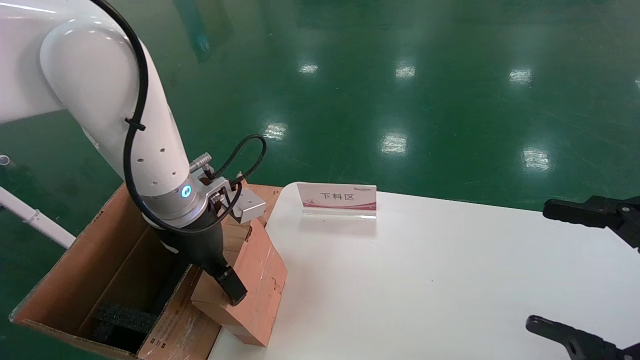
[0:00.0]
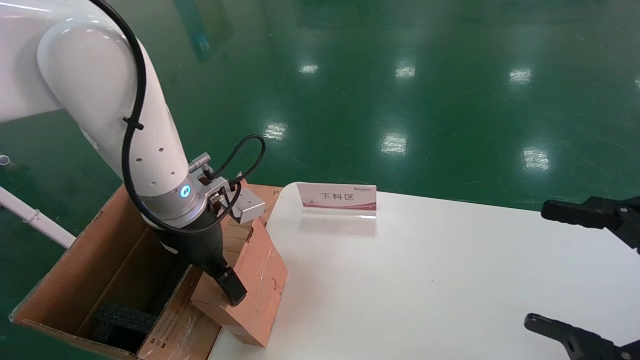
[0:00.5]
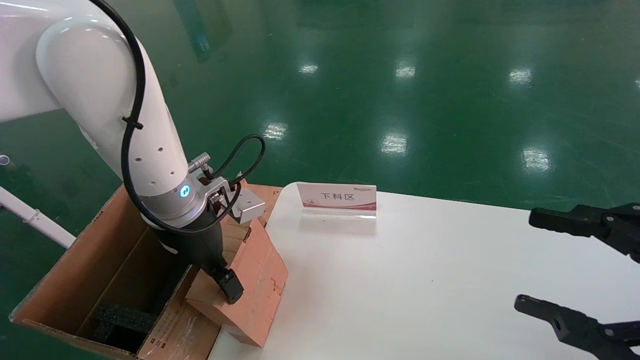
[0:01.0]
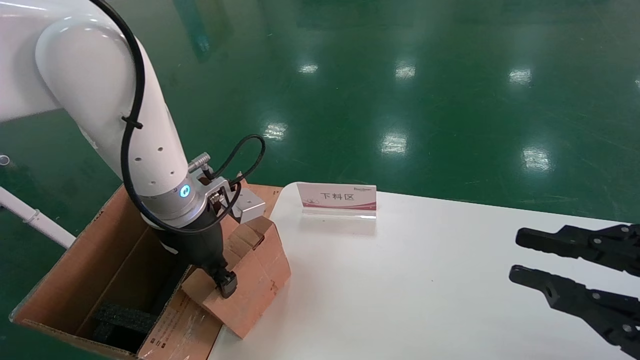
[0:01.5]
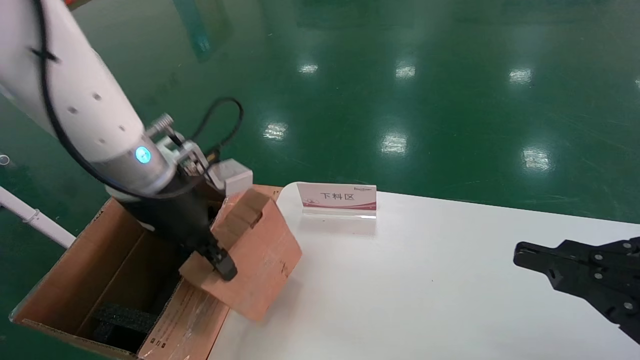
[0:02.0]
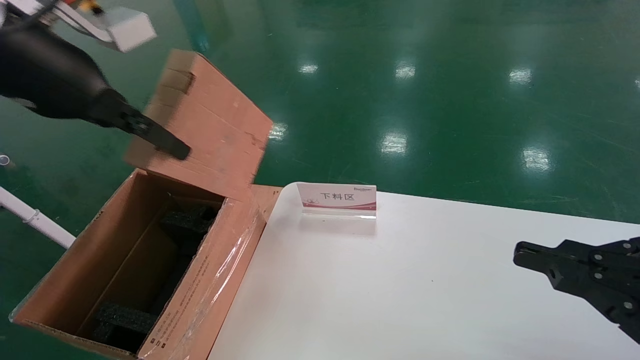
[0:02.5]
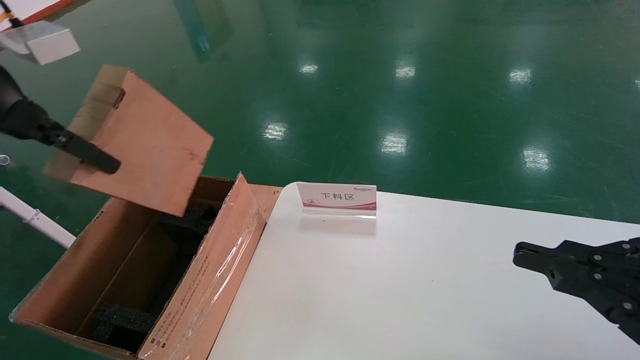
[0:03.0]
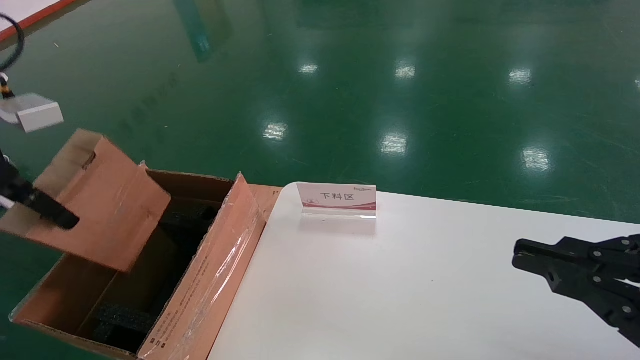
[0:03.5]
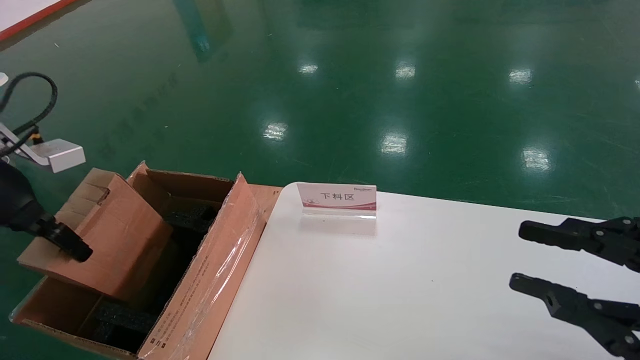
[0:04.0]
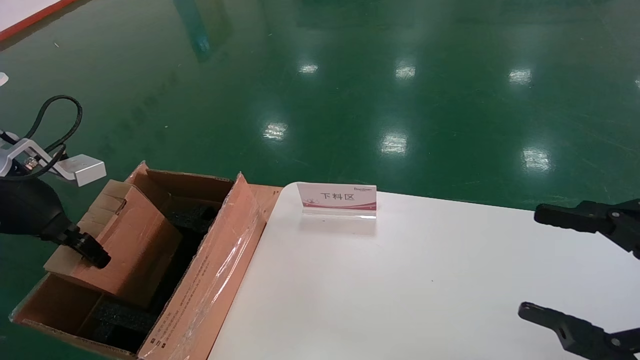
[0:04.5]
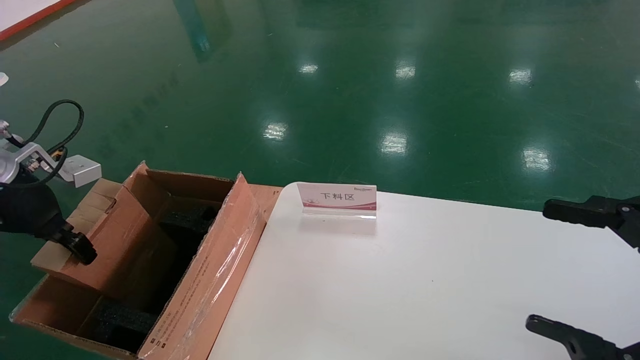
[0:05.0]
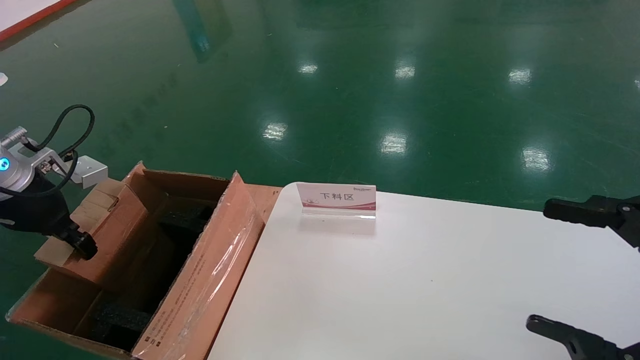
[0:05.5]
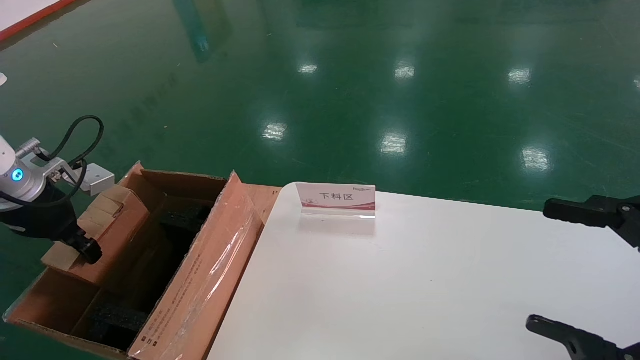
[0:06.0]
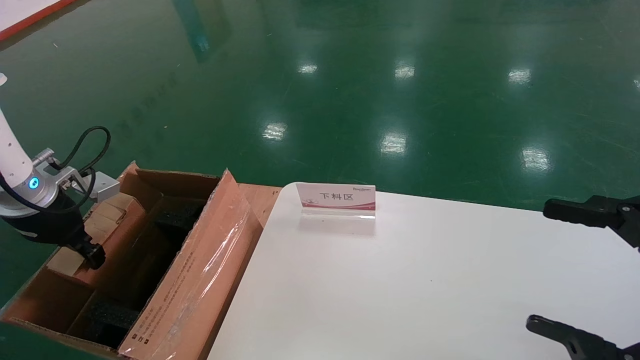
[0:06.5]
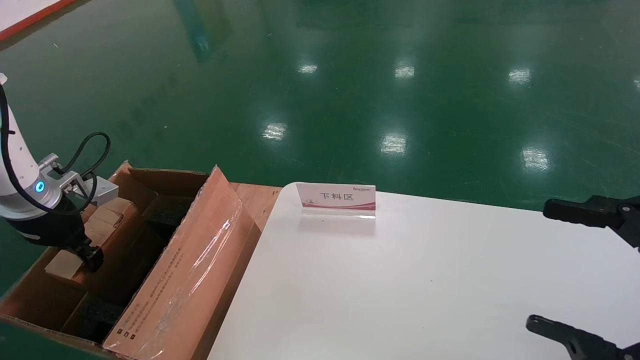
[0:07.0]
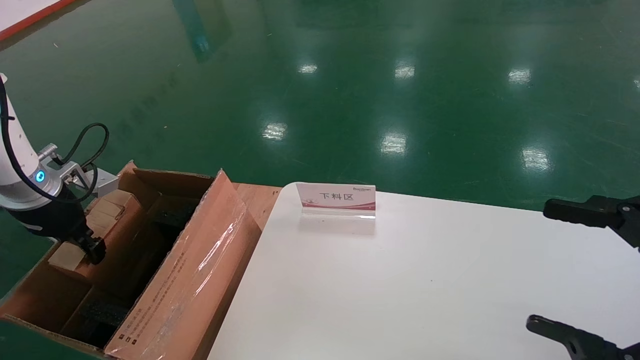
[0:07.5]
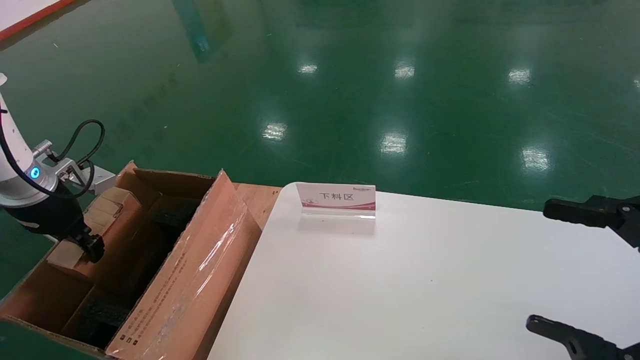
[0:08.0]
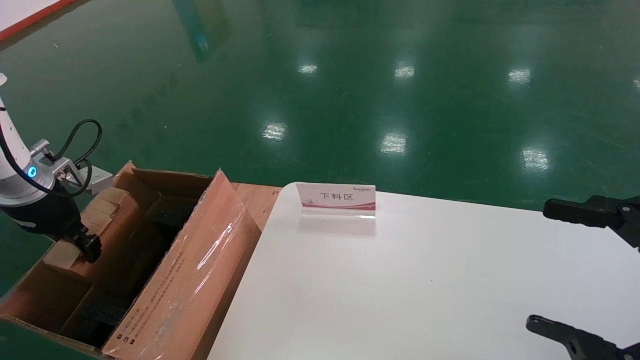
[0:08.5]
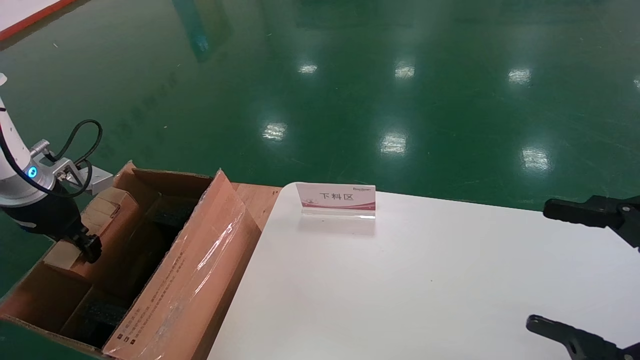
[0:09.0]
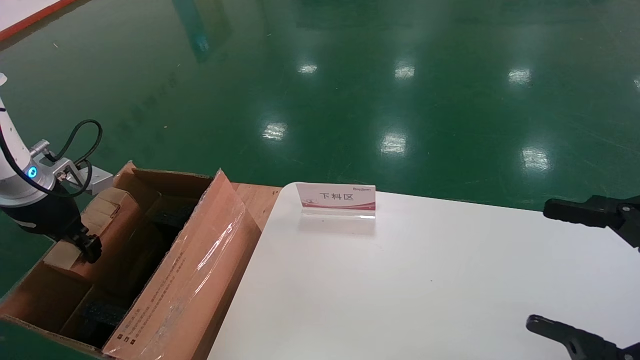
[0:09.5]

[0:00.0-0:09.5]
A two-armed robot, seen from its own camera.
Task of the whole recording: pick up the small cardboard box and load it into the large cardboard box.
0:00.0 to 0:02.0: The right gripper closes up; the left gripper heads upward, covering roughly 5 cm, and closes.
0:02.0 to 0:04.0: The left gripper shifts approximately 20 cm to the left.
0:04.0 to 0:05.5: The left gripper moves about 5 cm. Meanwhile the right gripper opens.
0:05.5 to 0:07.5: The left gripper shifts by some 5 cm.
0:07.5 to 0:09.5: Both grippers stay about where they are.

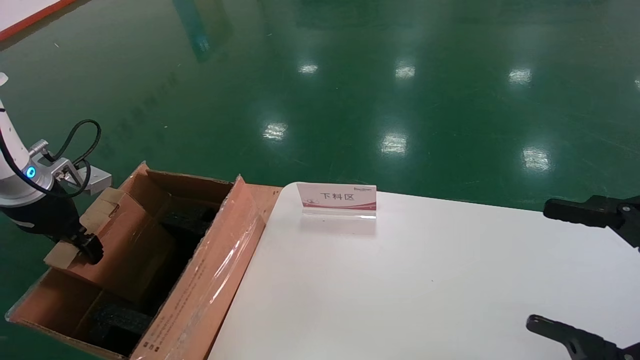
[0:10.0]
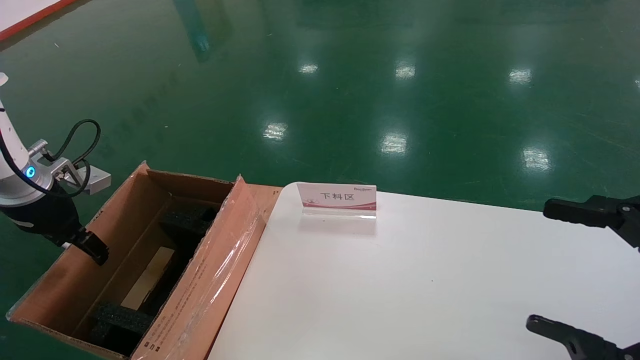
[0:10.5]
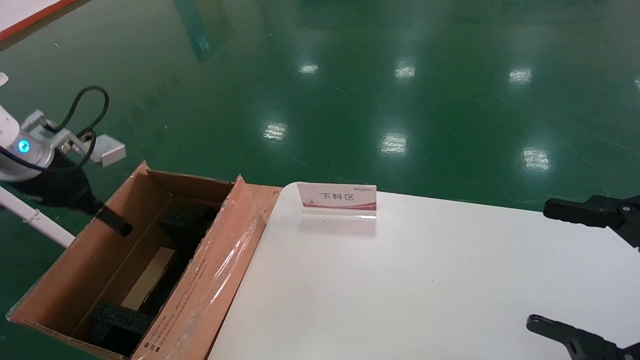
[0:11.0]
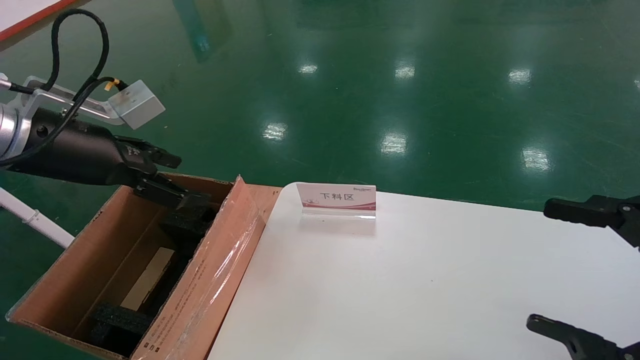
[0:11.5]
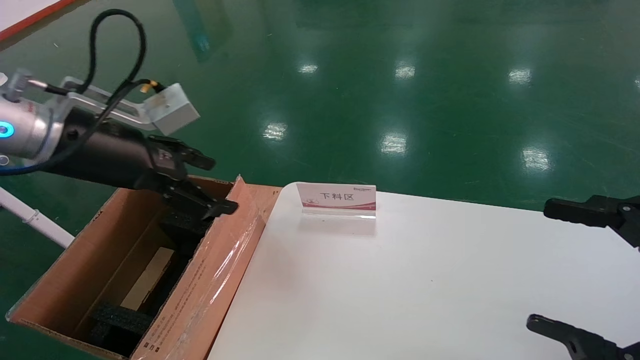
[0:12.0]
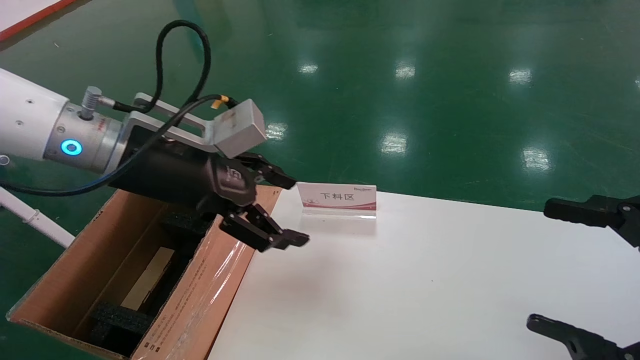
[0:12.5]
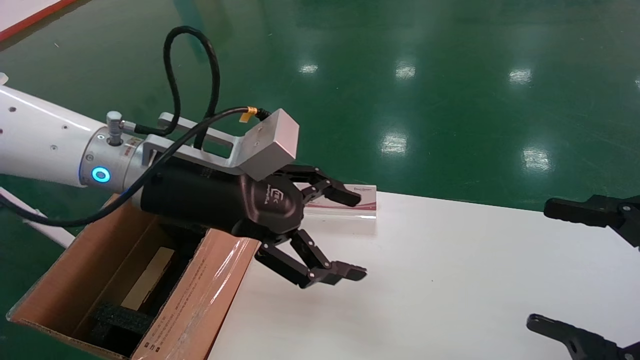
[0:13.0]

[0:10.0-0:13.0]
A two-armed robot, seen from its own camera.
Task of the whole recording: pick up the small cardboard box and load it into the large cardboard box.
0:10.0 to 0:11.5: The left gripper is displaced to the right and upward by some 15 cm, and opens its fingers.
0:11.5 to 0:13.0: The left gripper goes roughly 15 cm to the right.

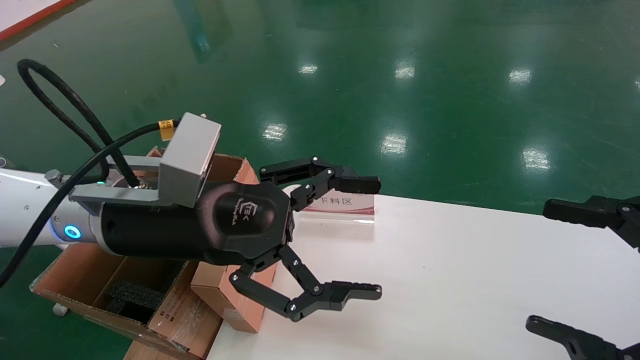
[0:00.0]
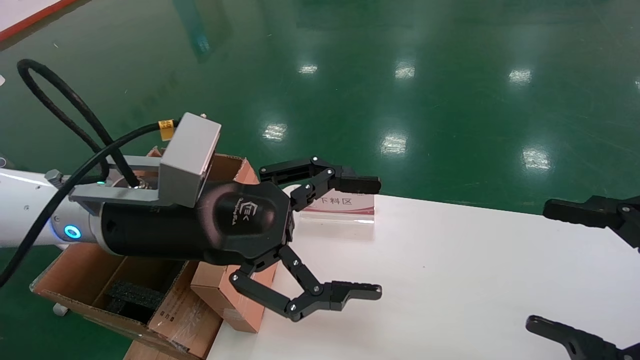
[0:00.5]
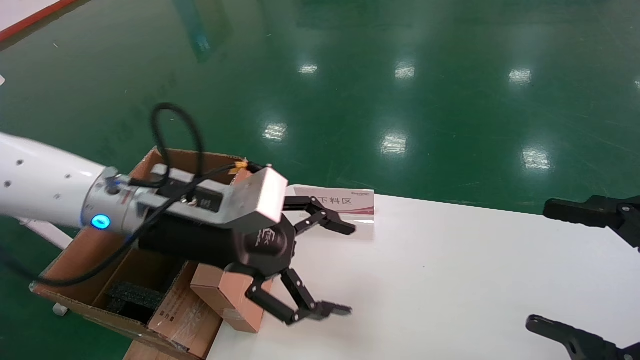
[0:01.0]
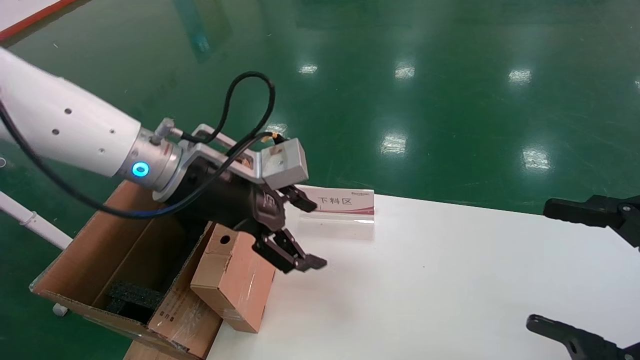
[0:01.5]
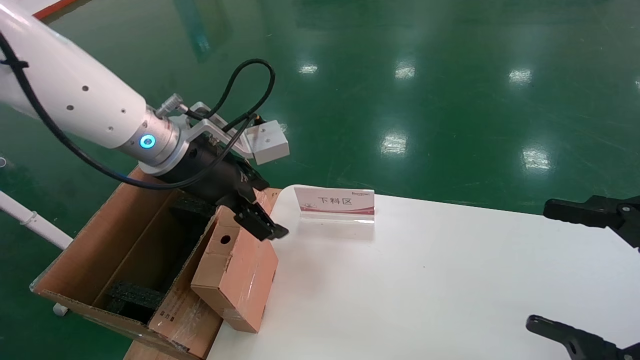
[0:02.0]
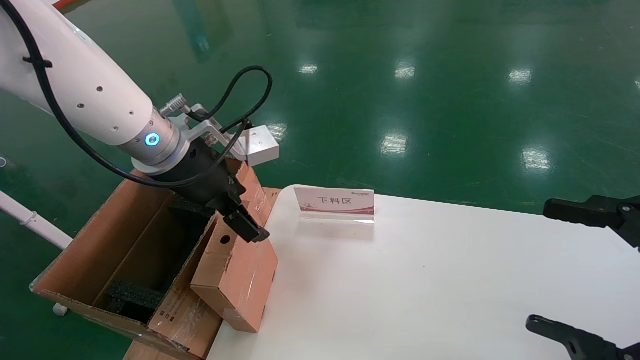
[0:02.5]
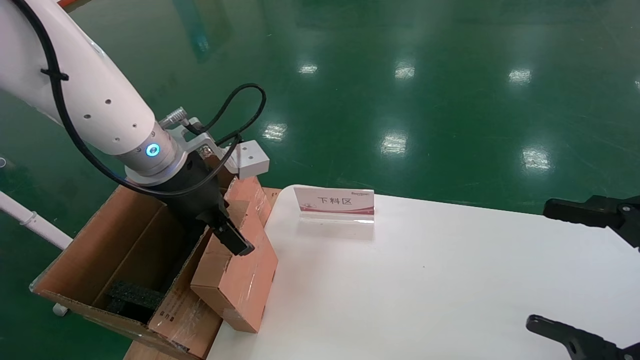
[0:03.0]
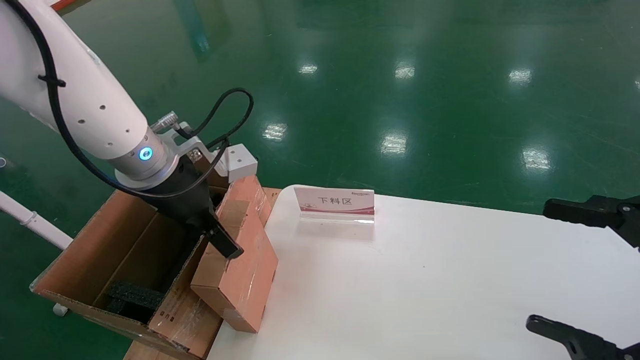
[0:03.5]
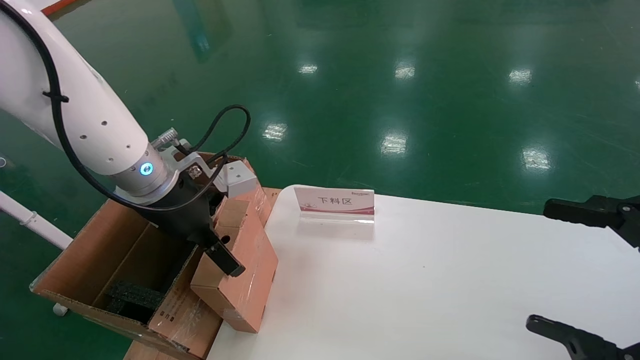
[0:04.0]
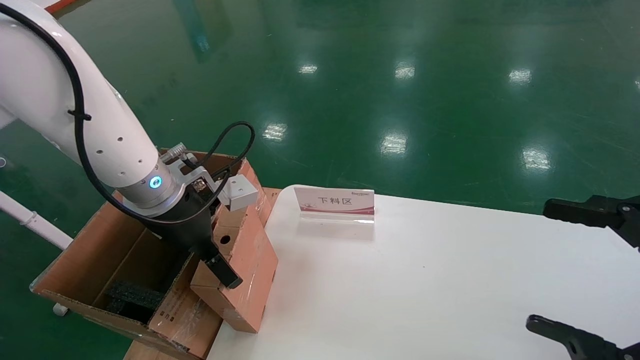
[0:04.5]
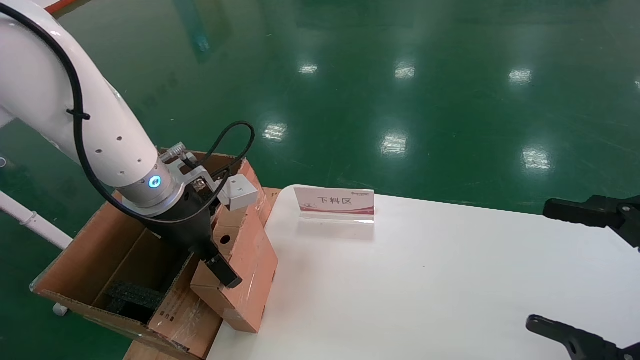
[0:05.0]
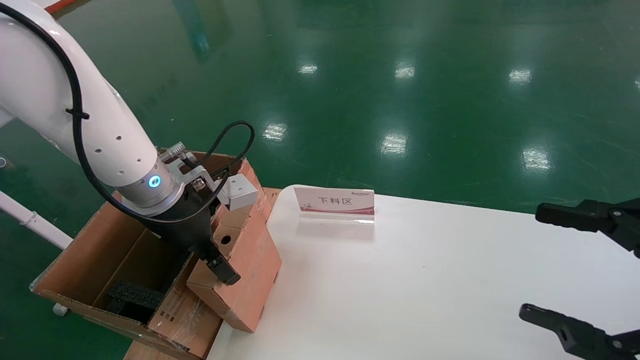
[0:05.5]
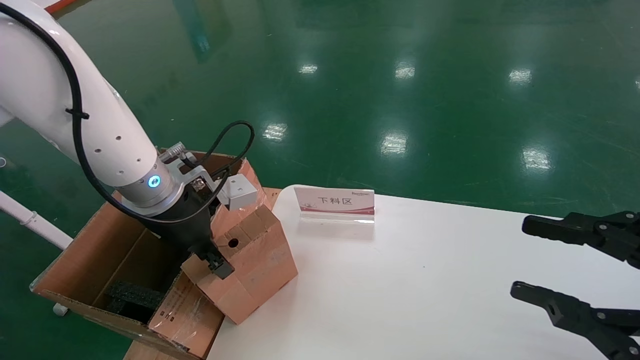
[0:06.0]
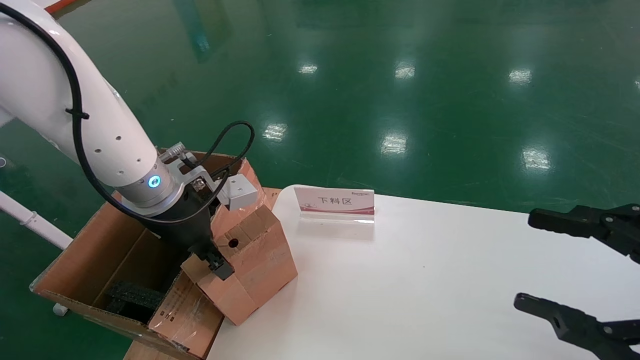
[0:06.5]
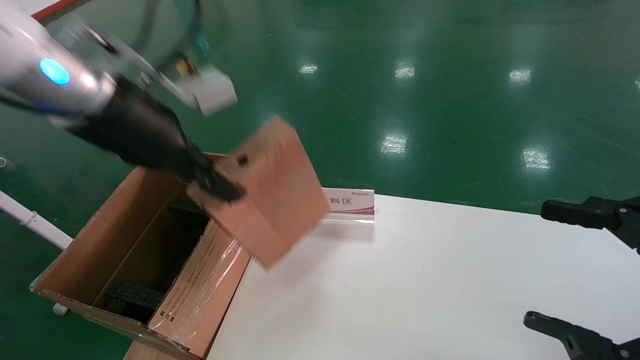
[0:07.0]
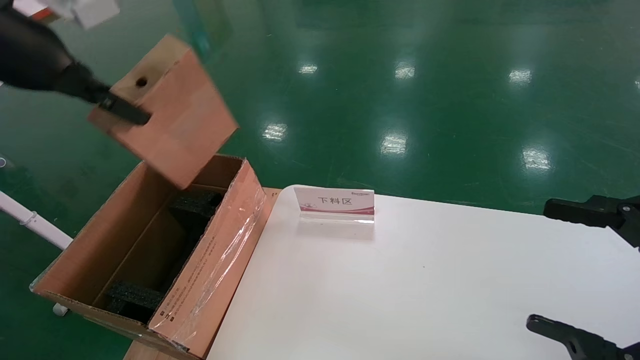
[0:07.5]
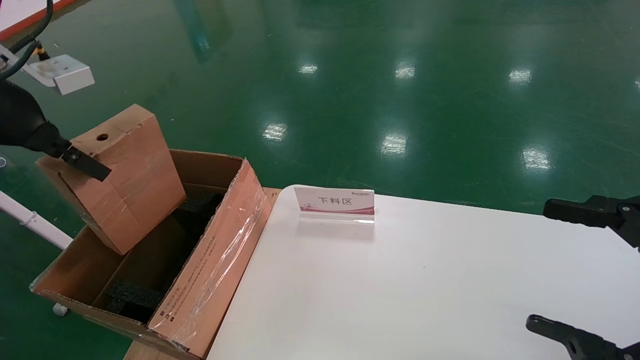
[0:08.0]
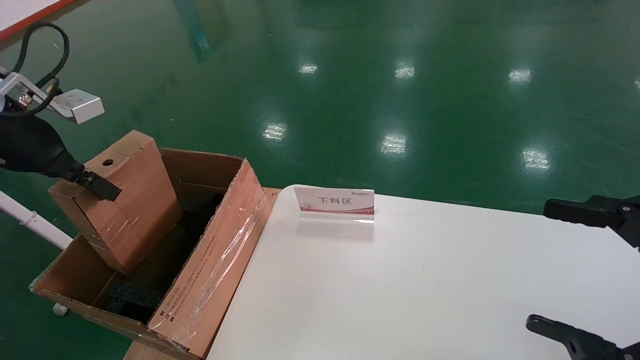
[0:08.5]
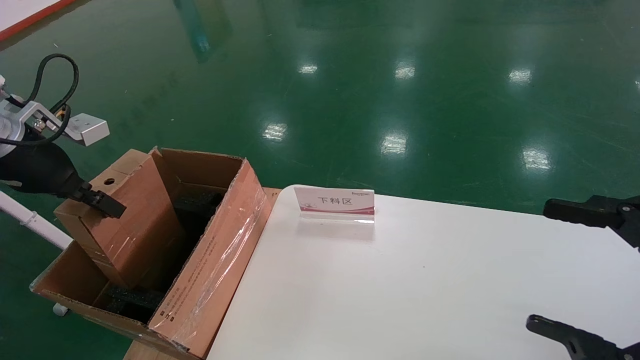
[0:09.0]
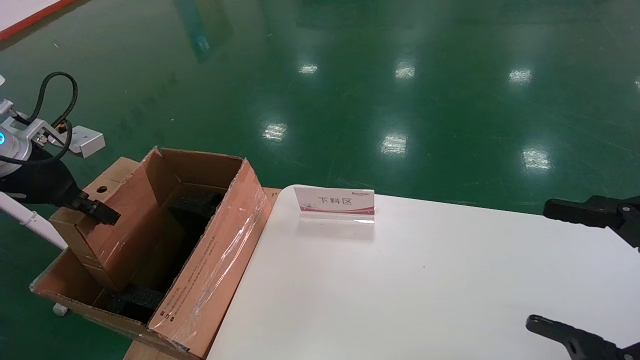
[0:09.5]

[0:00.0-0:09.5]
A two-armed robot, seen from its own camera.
Task of the whole recording: pick up the small cardboard box and load it into the large cardboard box.
Step, 0:01.0 to 0:06.0: Pick up the mouse and power cord box.
0:00.0 to 0:02.0: The left gripper shifts some 10 cm forward.
0:04.0 to 0:05.5: The grippers make only small movements.
0:05.5 to 0:07.5: The right gripper closes, then reopens. Meanwhile the left gripper goes approximately 20 cm upward and to the left, and closes up.
0:07.5 to 0:09.5: The left gripper goes roughly 20 cm downward and to the left.
